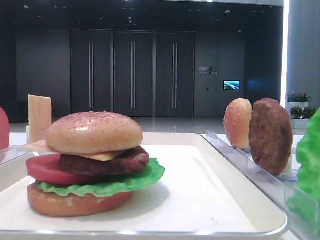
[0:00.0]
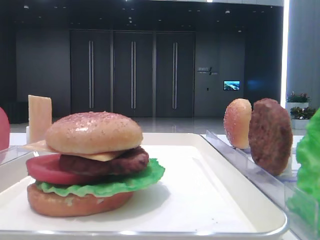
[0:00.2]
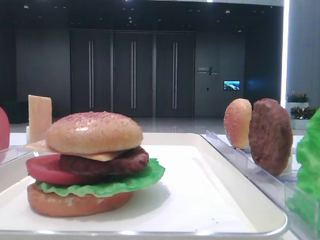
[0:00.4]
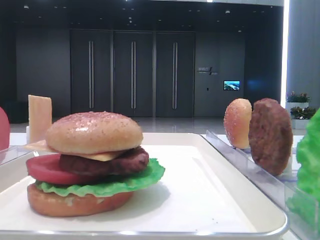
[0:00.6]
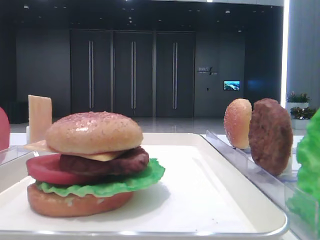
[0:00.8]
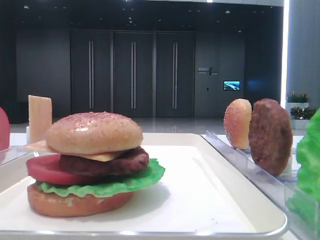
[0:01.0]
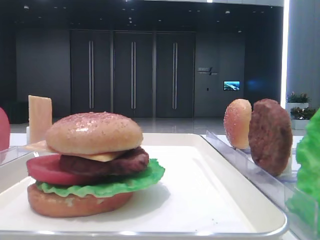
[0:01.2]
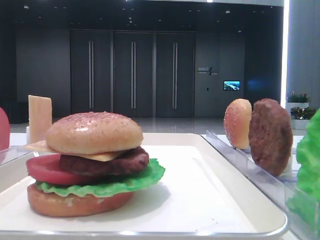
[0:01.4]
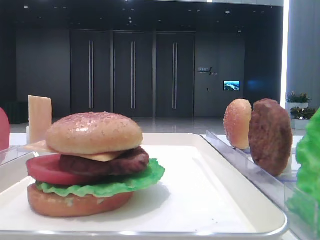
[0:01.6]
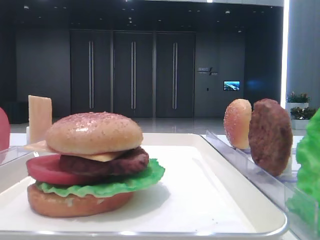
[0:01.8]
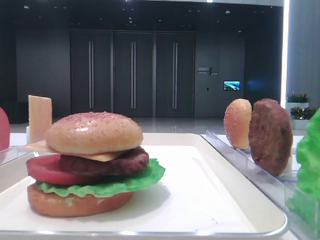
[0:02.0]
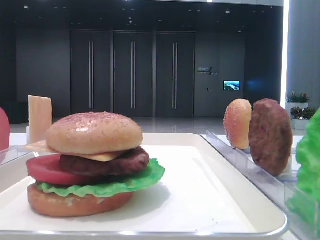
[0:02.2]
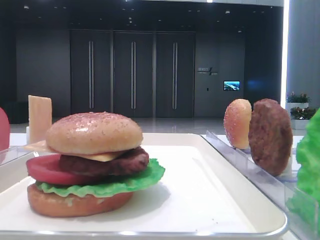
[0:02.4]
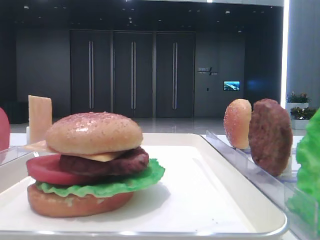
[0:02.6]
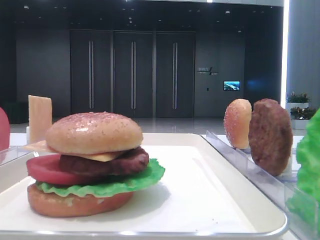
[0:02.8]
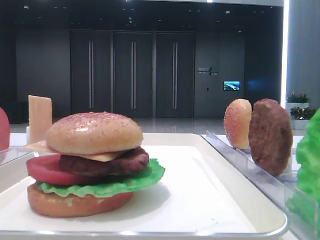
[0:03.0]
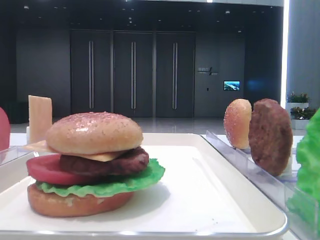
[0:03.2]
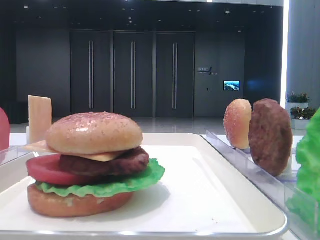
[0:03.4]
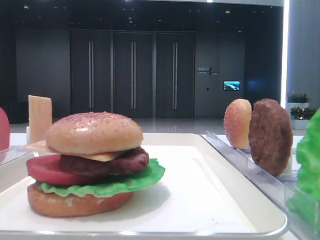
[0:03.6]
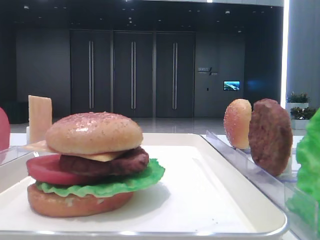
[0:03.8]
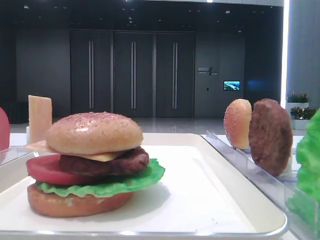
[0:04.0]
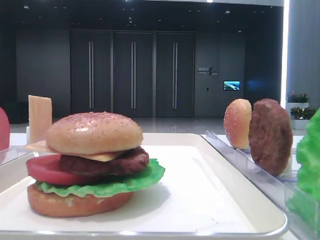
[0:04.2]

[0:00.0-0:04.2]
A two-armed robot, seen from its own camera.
0:02.8 to 0:04.2: Neither gripper changes place.

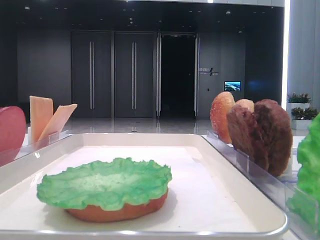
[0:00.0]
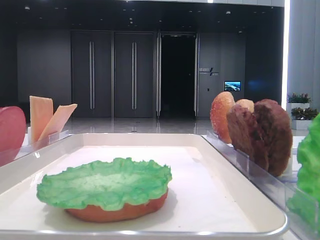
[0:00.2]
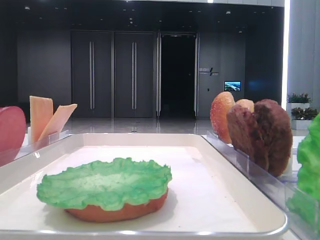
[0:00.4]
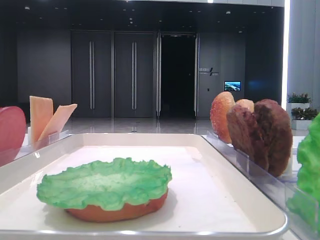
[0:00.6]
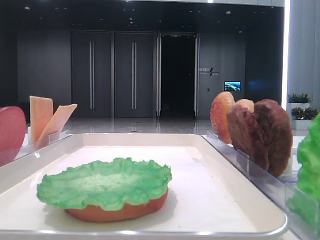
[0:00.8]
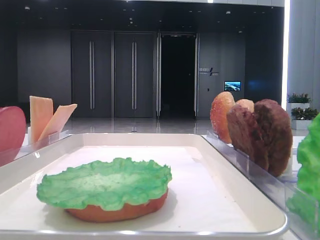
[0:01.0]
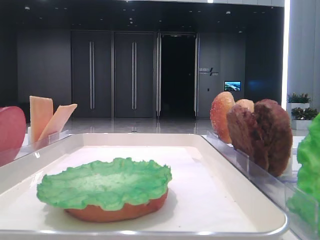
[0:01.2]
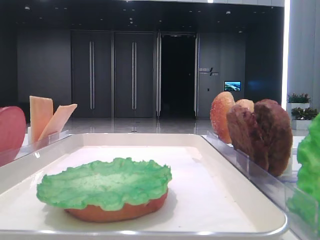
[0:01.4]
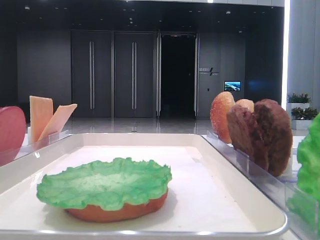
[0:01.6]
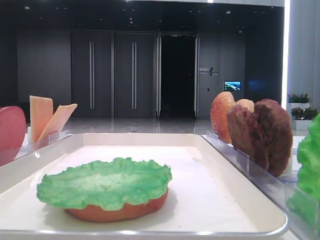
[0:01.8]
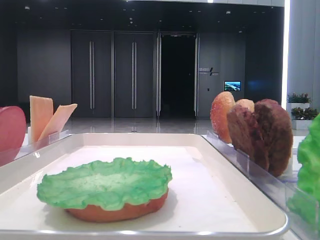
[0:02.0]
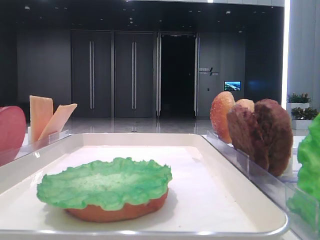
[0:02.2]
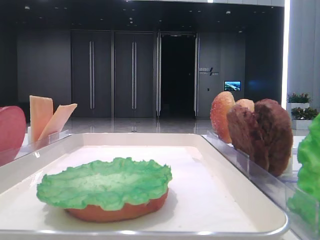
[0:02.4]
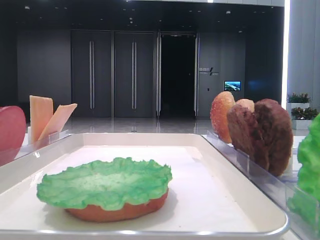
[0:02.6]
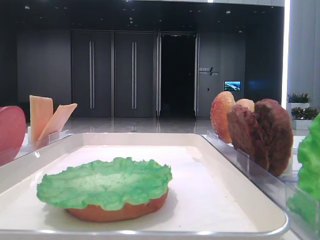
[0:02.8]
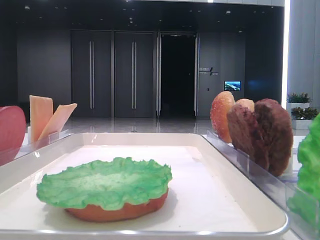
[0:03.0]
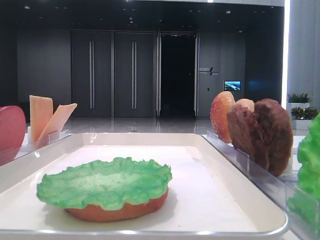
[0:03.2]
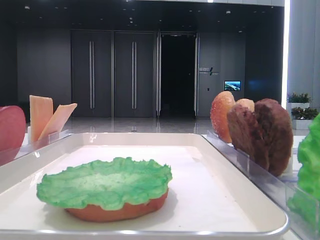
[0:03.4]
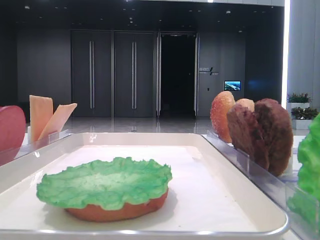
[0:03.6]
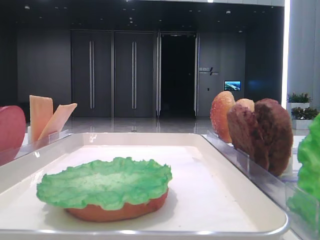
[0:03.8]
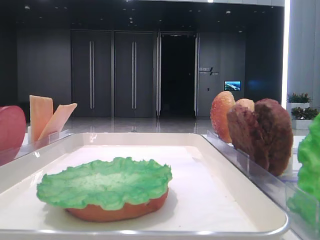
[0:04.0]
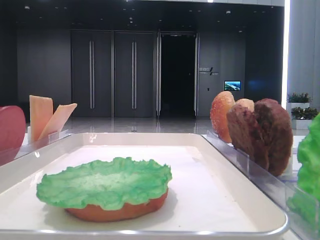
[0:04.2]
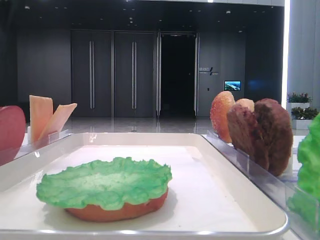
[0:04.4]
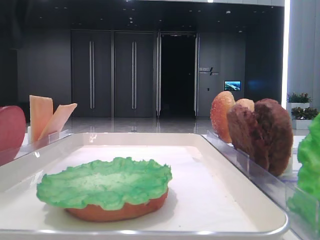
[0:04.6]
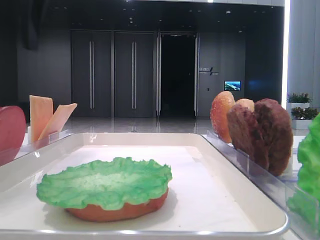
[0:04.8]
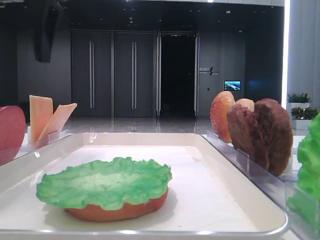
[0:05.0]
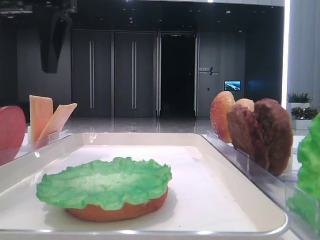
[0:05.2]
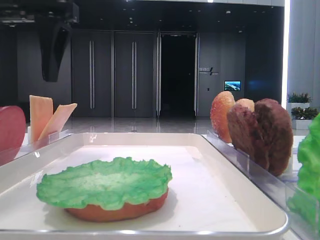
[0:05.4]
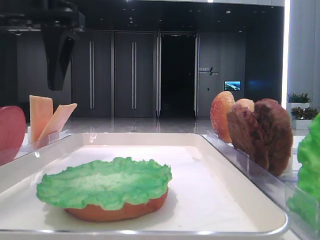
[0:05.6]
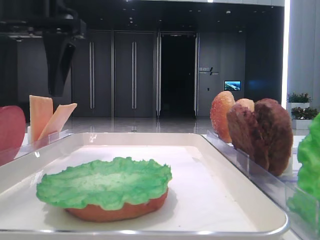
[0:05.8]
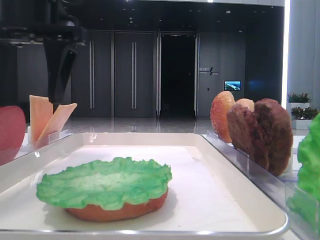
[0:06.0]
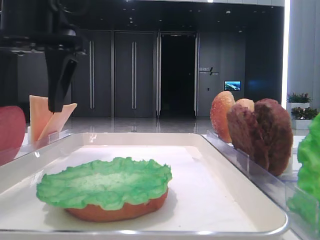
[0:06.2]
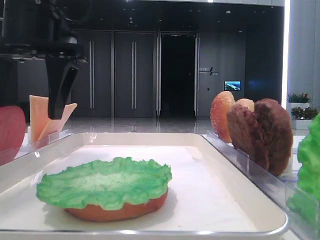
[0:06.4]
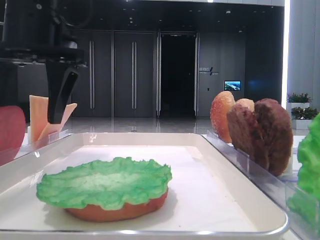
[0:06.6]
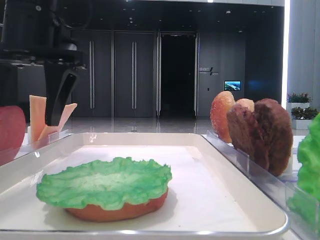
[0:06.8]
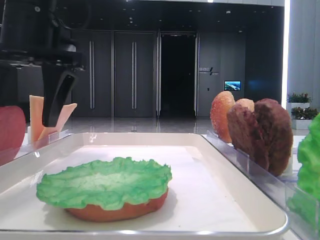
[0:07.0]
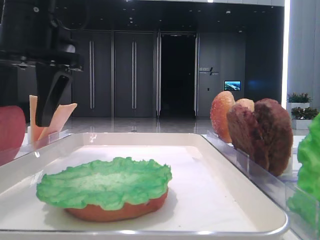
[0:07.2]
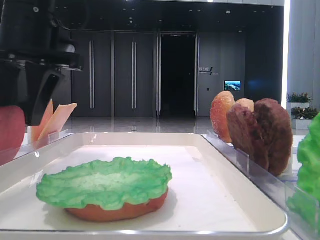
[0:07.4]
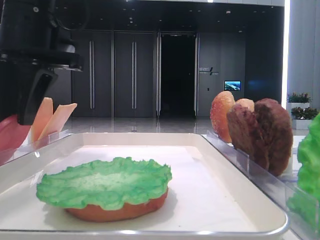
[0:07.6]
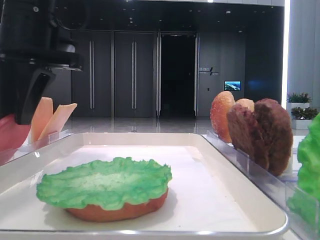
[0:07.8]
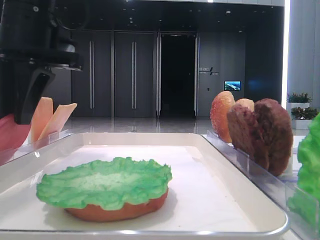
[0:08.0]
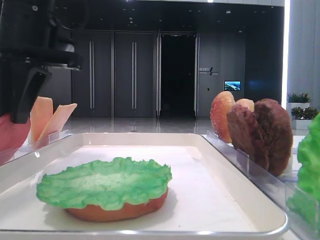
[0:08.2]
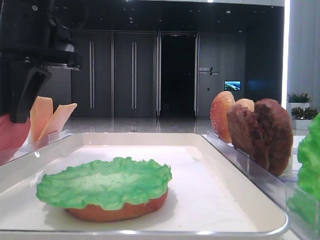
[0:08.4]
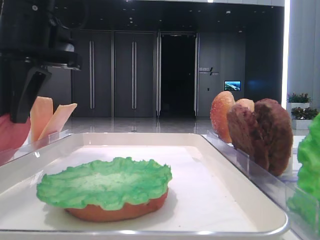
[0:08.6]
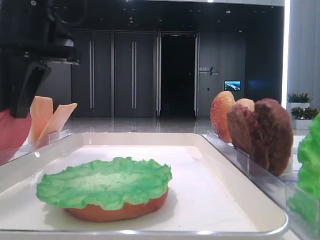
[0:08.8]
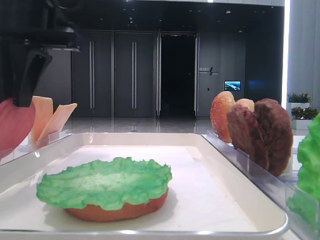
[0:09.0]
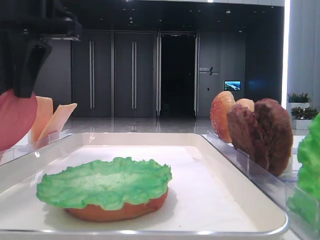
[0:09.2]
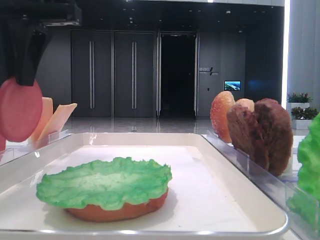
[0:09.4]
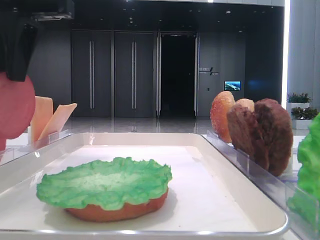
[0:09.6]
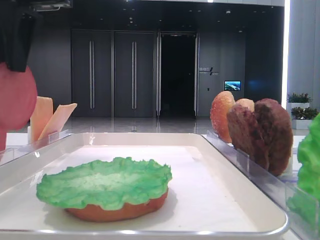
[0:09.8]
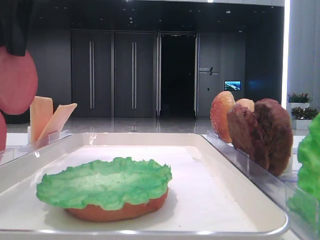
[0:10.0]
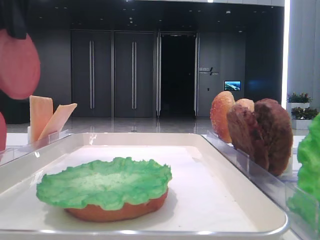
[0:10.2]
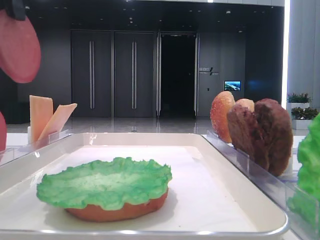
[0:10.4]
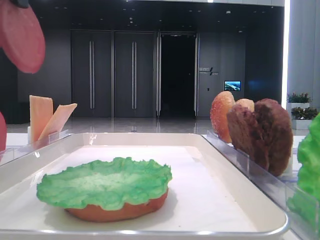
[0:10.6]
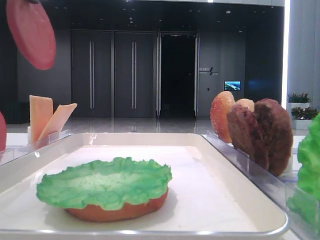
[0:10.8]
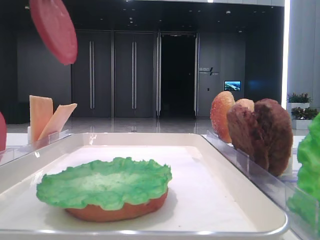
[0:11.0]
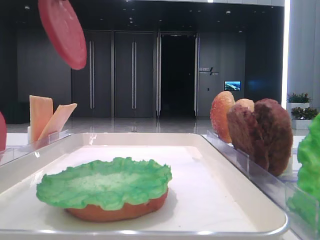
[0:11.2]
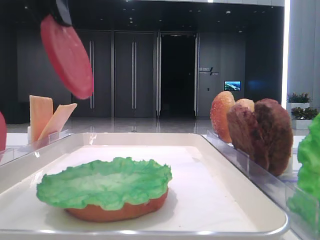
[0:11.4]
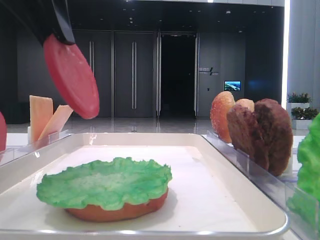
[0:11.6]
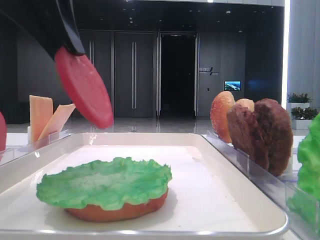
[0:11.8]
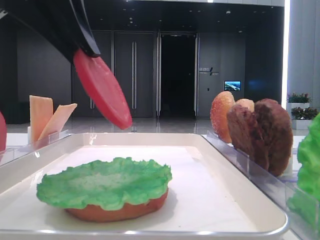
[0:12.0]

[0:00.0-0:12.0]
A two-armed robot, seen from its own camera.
Step, 0:00.0 to 0:08.4: Pick up the tomato slice with the left hand.
0:04.4 to 0:06.0: The left gripper shifts approximately 10 cm to the right and downward.
0:06.0 to 0:07.6: The left gripper closes its fingers.
0:07.6 to 0:09.0: The grippers make only small movements.
0:09.0 to 0:10.4: The left gripper goes approximately 10 cm upward and backward.
0:10.4 to 0:12.0: The left gripper travels downward by roughly 5 cm.

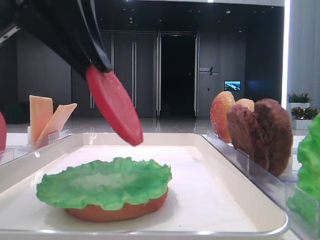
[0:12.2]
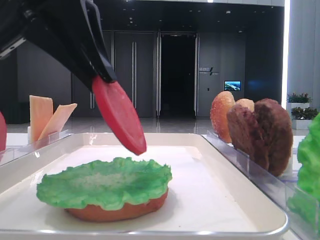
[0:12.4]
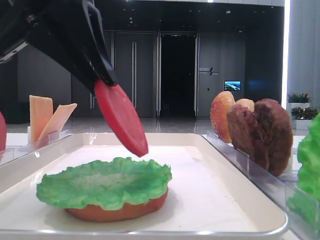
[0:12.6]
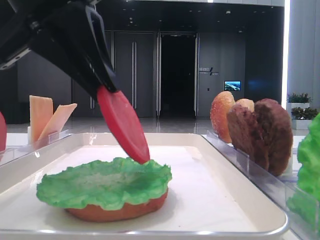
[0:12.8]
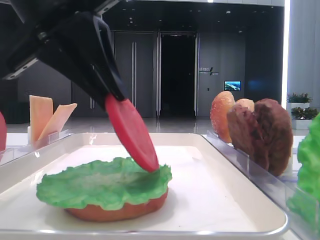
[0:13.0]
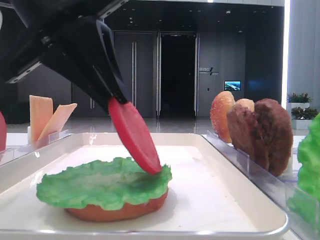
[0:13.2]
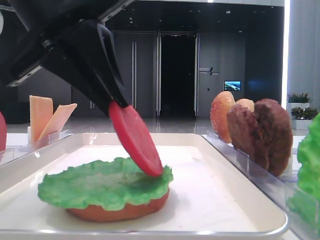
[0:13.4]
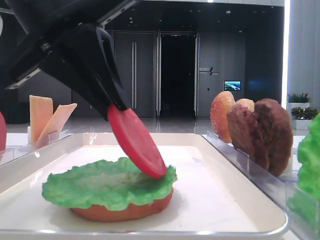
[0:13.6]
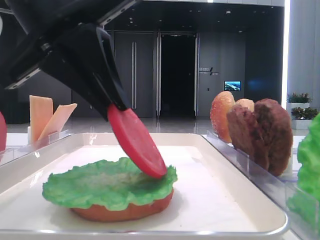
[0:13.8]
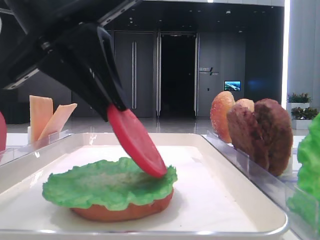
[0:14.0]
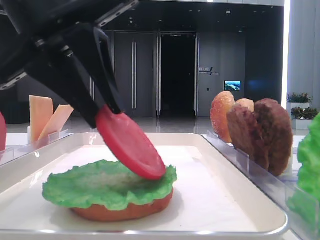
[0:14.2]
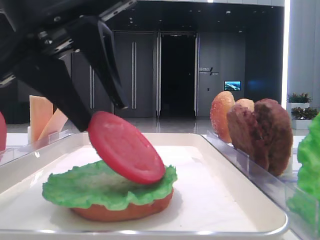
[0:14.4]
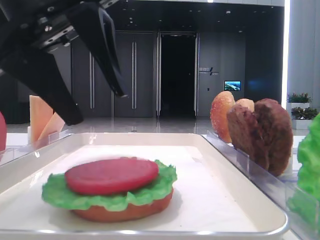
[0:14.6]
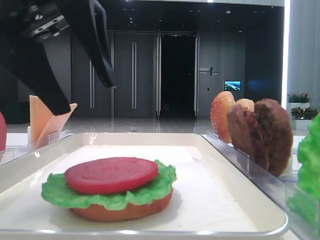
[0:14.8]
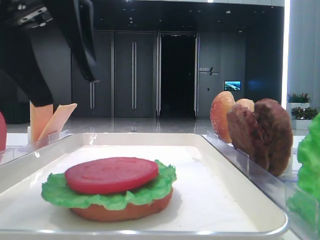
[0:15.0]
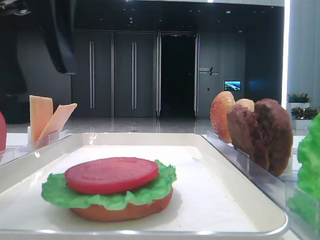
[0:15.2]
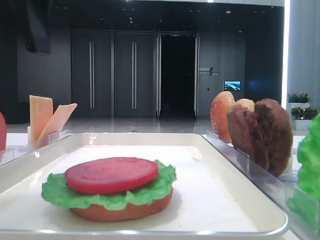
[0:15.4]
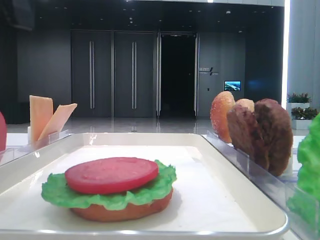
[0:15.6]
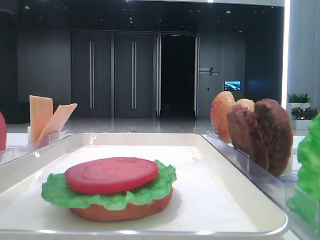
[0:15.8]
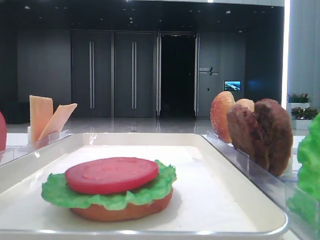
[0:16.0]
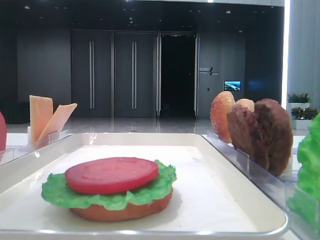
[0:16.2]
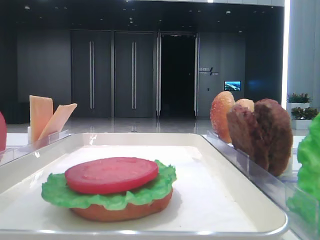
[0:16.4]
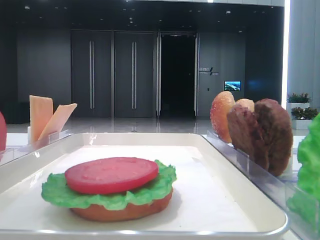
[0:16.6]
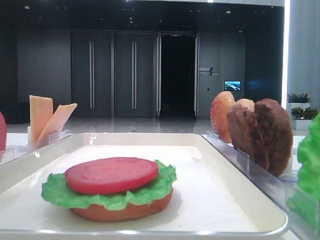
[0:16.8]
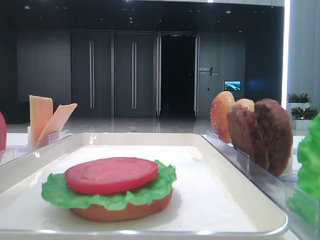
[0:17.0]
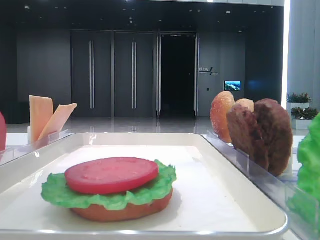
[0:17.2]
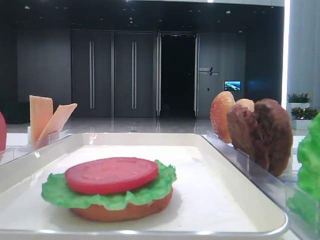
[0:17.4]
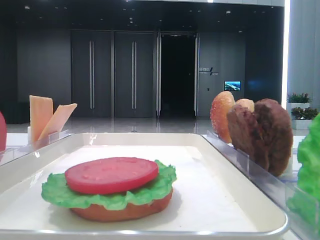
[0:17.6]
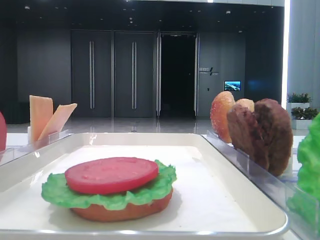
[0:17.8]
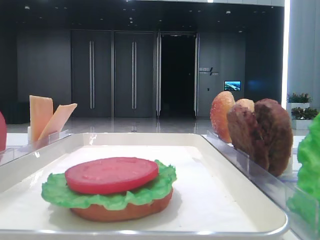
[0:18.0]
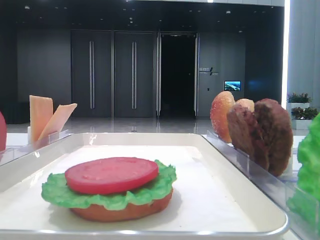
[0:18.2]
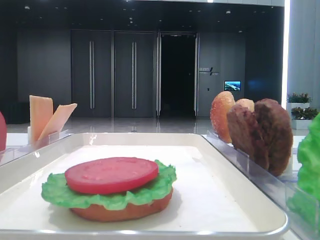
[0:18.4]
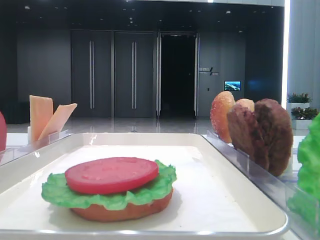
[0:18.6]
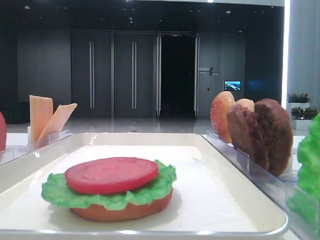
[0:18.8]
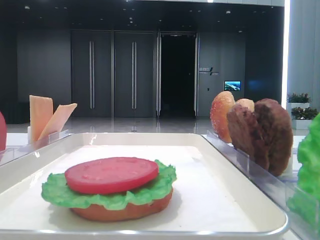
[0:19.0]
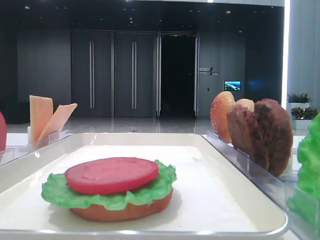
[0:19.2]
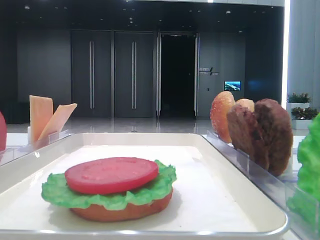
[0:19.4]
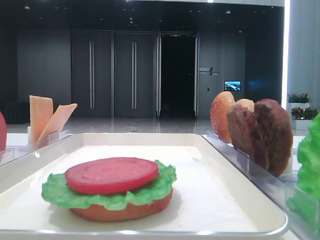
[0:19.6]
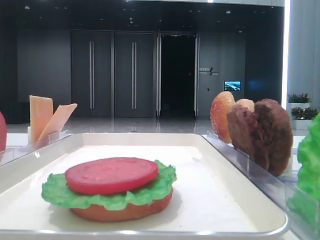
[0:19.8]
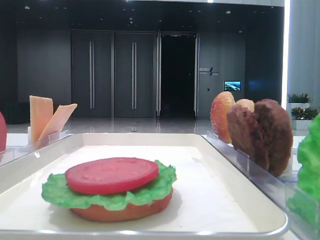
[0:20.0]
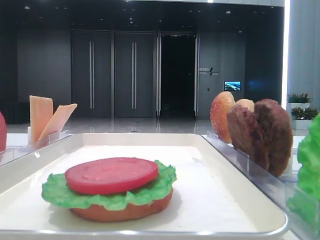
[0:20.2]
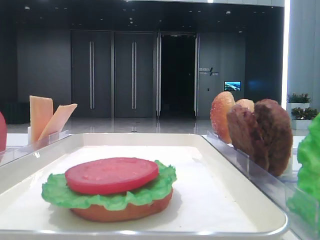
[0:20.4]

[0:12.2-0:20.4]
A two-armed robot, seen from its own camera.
Step, 0:12.2 to 0:14.6: Place the tomato slice on the lettuce leaf with the left hand.
0:12.2 to 0:13.8: The grippers move only a little.
0:13.8 to 0:15.4: The left gripper moves upward, approximately 5 cm, and opens.
0:17.2 to 0:18.8: The left gripper is displaced to the left by about 15 cm.
